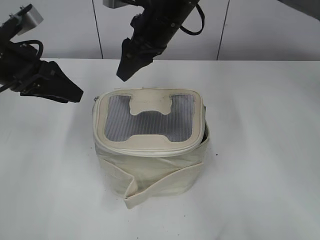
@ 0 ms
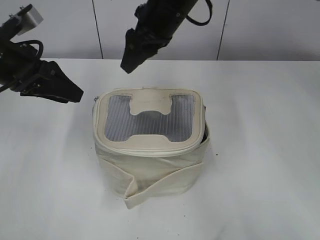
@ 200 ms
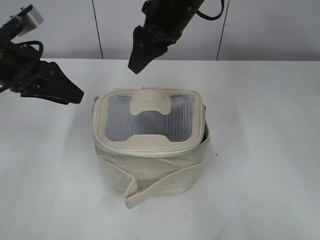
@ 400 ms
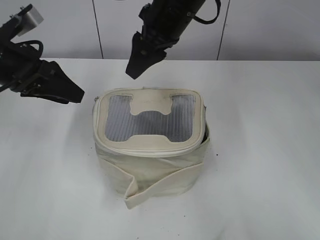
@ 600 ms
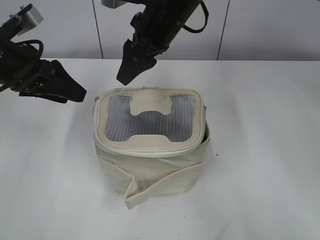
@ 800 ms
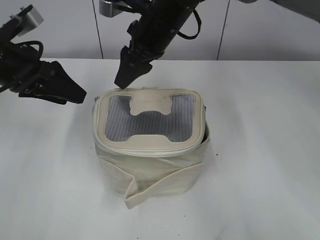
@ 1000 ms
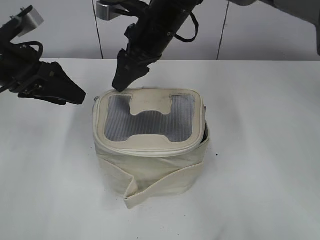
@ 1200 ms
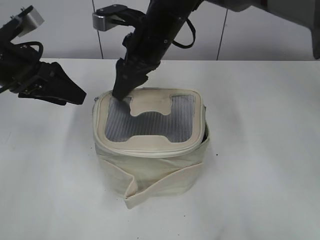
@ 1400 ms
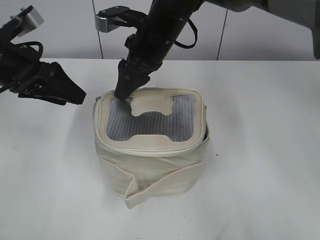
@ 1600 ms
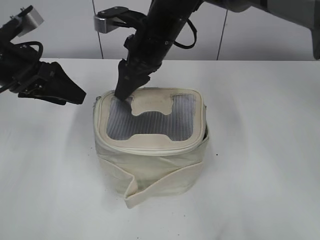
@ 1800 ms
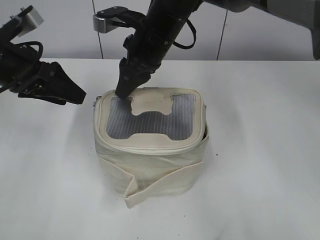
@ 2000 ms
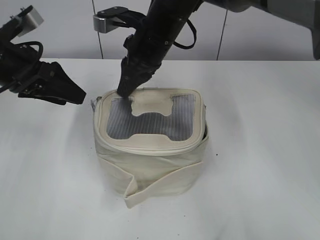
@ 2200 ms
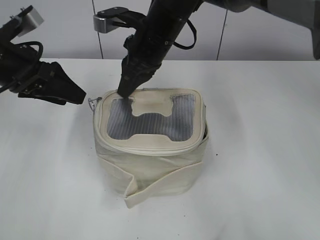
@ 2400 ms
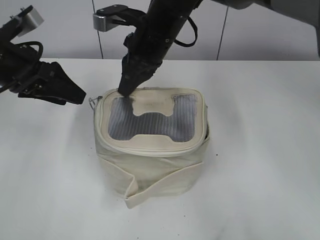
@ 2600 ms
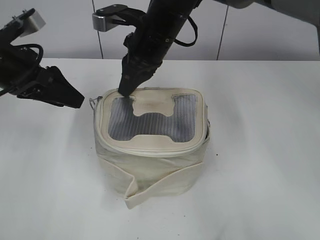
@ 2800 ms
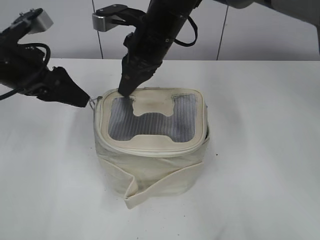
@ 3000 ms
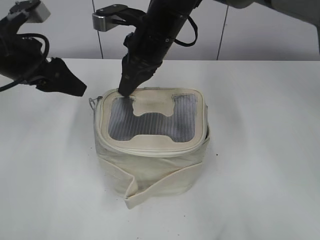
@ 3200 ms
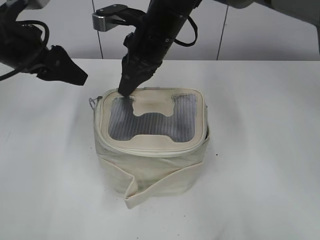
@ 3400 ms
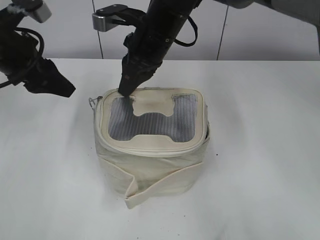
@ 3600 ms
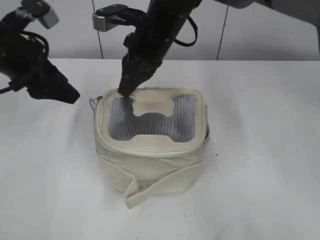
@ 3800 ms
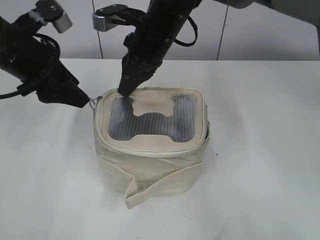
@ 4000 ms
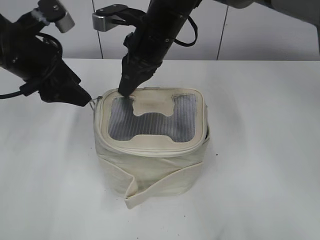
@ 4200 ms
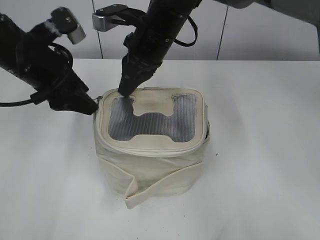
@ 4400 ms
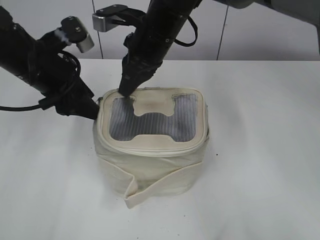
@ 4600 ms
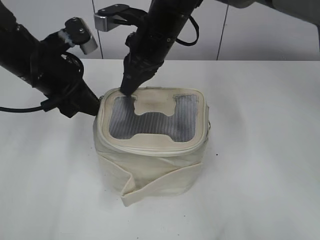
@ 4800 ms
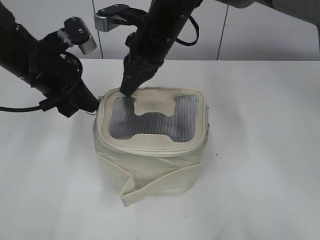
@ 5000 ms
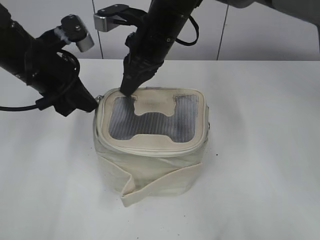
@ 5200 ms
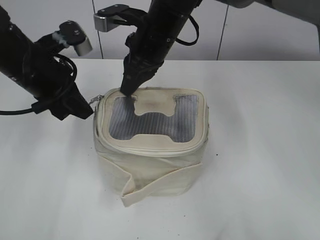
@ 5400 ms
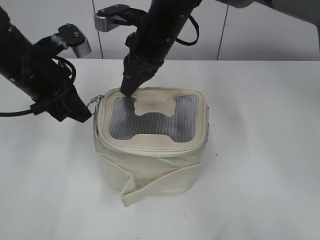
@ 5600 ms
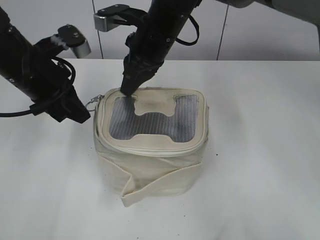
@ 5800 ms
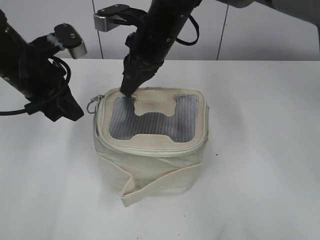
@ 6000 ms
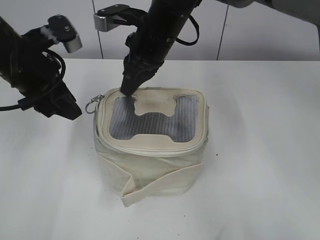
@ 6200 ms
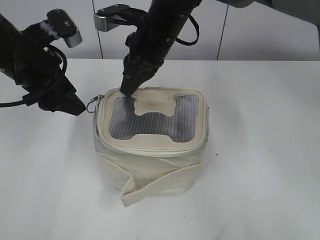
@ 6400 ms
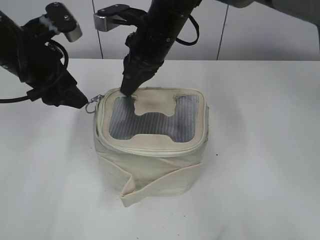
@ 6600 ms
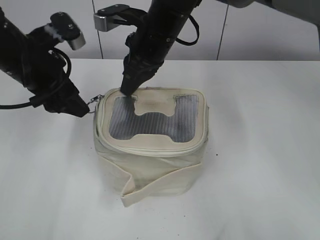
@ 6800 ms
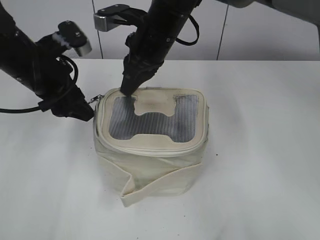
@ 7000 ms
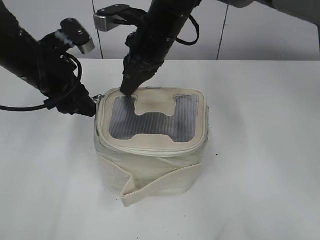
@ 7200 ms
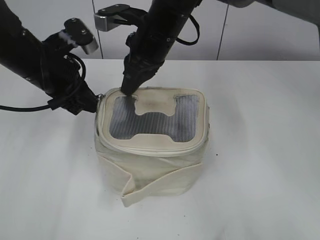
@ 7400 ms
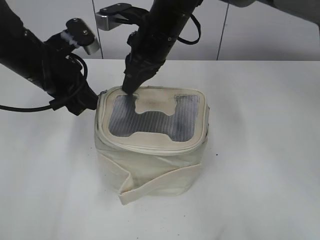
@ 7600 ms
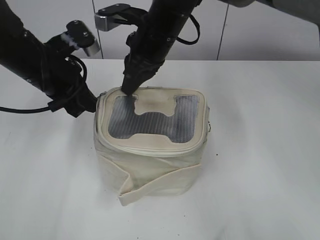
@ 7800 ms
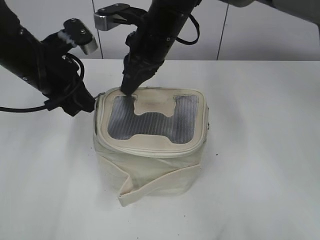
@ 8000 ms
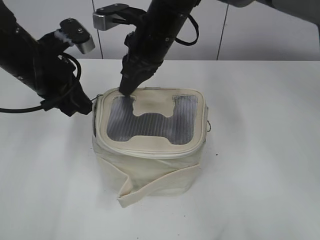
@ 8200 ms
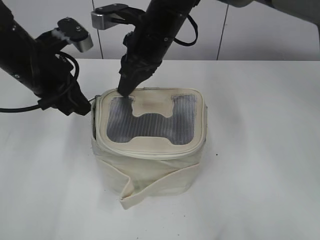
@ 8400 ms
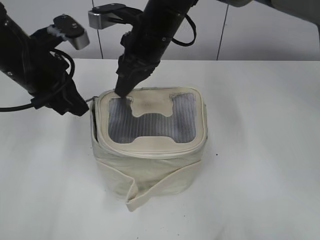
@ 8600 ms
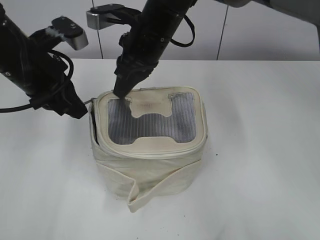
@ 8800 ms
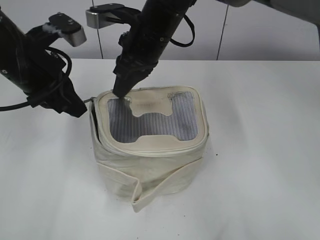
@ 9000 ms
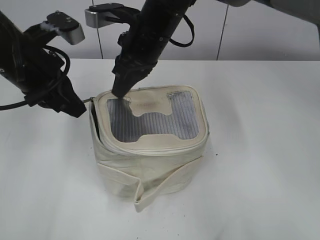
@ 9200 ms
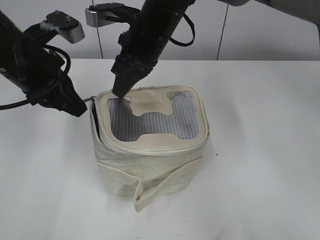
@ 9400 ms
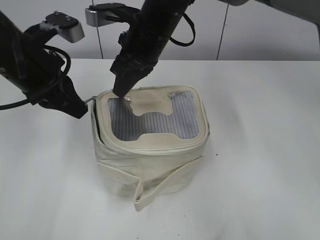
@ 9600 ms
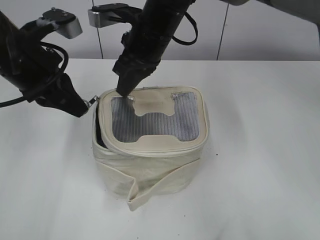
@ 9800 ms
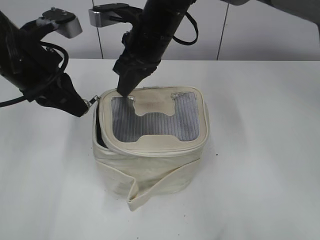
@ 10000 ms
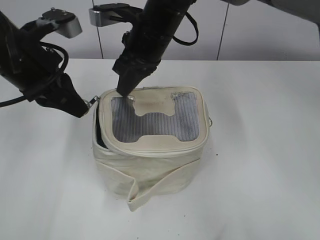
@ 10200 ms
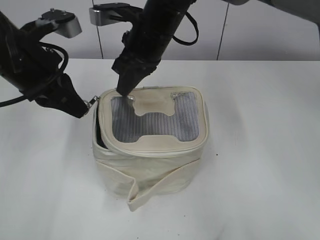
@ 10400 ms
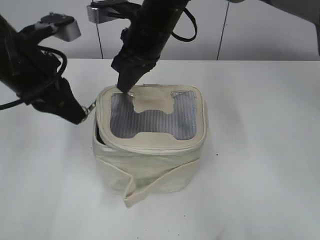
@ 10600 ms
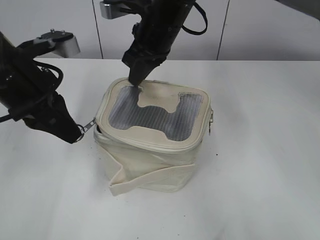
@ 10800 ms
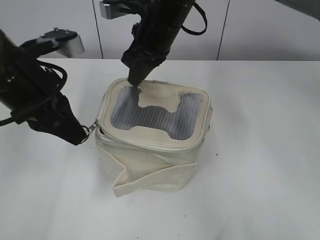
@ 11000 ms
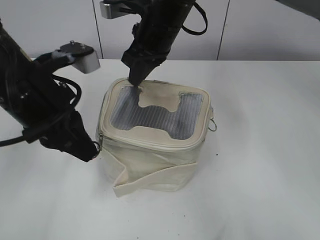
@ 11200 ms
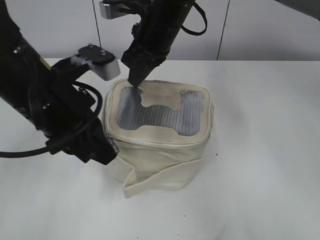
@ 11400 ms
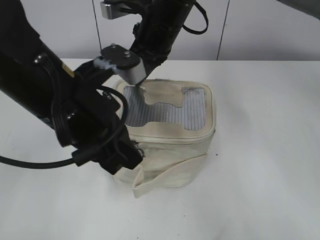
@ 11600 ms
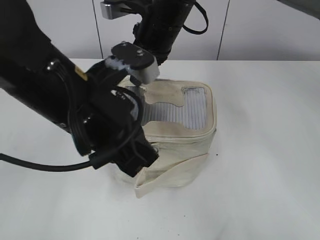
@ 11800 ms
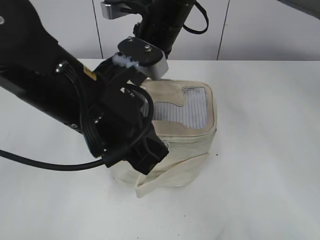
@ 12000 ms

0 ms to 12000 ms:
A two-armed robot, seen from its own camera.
0 ms to 1600 ms: The grippers stay close to where they were, moving slightly.
1600 ms to 3000 ms: The right gripper closes its fingers.
4400 ms to 6000 ms: The left gripper closes.
6000 ms to 7600 ms: The left gripper opens, then closes once more.
7600 ms to 10400 ms: There are only small adjustments of the grippers.
10400 ms to 12000 ms: The left gripper shifts approximately 15 cm to the right and backward.

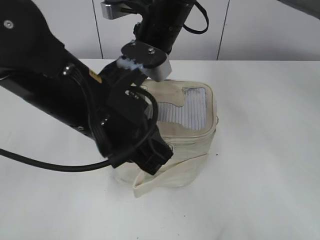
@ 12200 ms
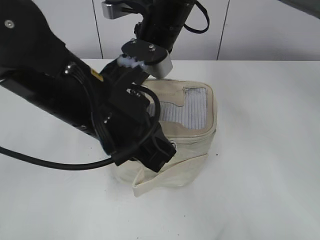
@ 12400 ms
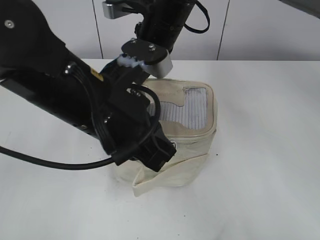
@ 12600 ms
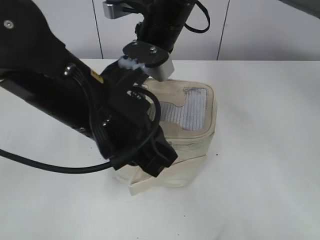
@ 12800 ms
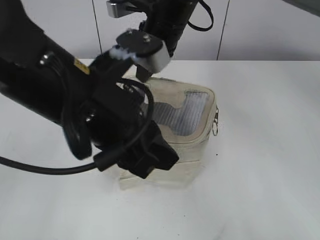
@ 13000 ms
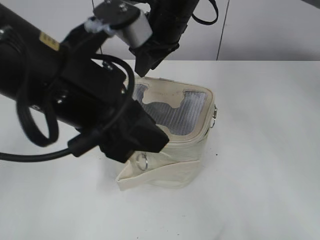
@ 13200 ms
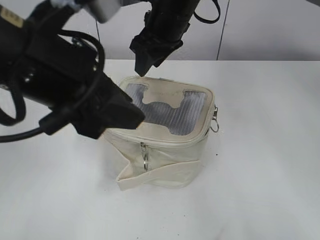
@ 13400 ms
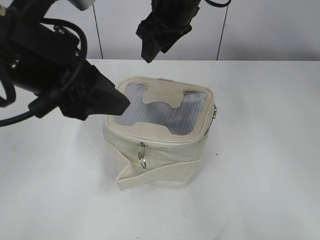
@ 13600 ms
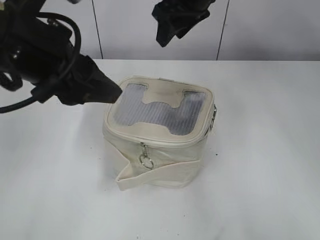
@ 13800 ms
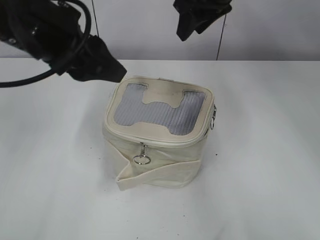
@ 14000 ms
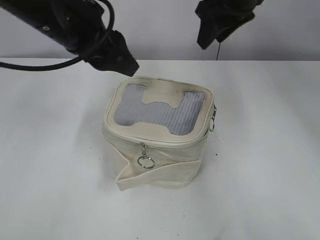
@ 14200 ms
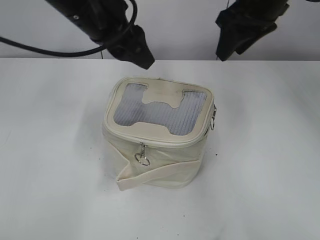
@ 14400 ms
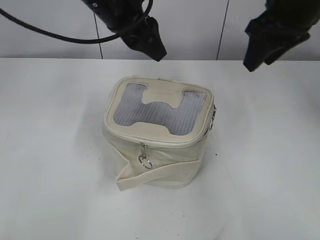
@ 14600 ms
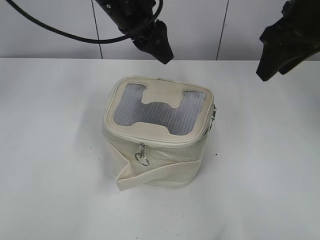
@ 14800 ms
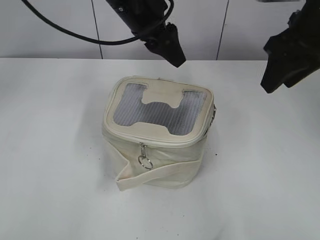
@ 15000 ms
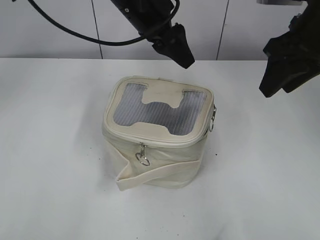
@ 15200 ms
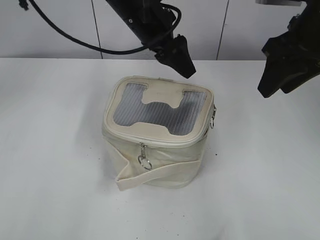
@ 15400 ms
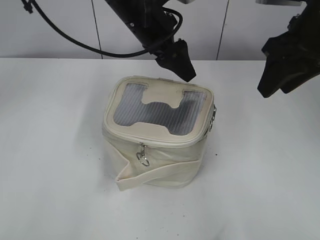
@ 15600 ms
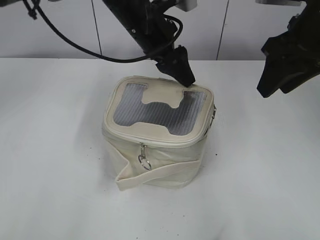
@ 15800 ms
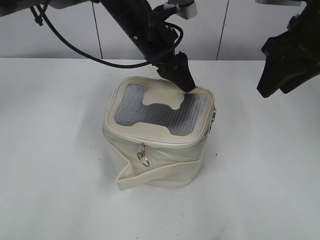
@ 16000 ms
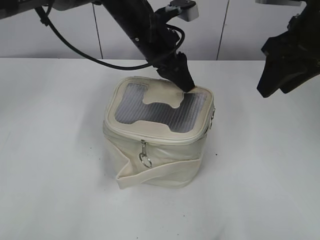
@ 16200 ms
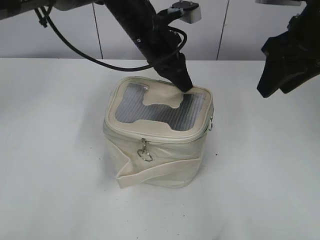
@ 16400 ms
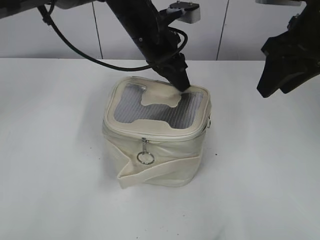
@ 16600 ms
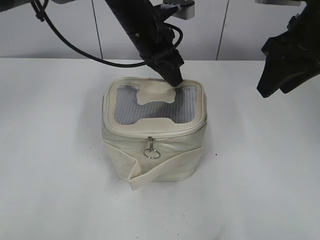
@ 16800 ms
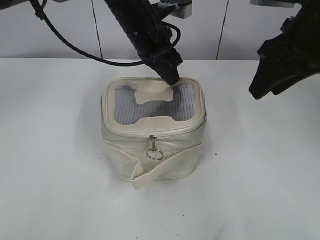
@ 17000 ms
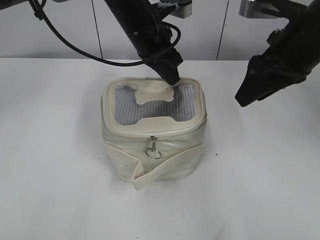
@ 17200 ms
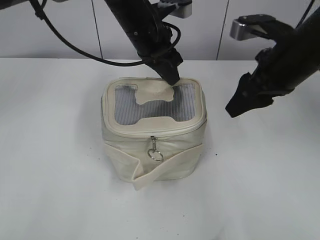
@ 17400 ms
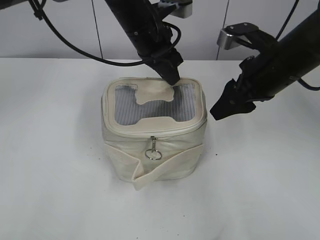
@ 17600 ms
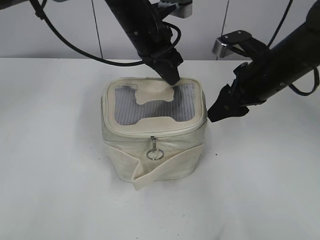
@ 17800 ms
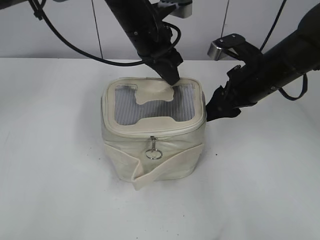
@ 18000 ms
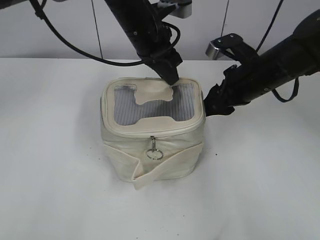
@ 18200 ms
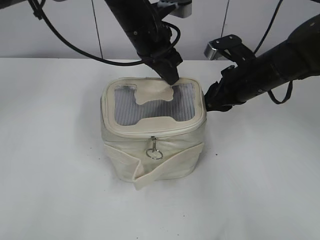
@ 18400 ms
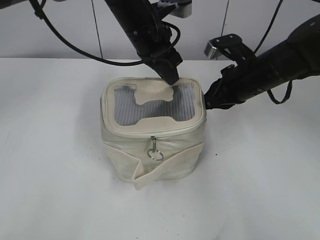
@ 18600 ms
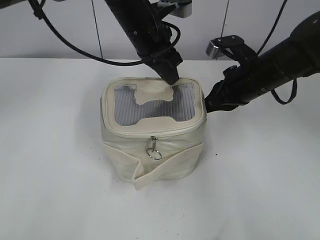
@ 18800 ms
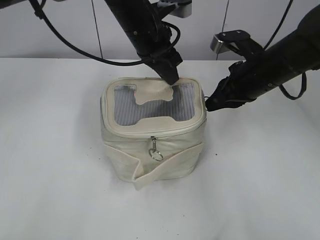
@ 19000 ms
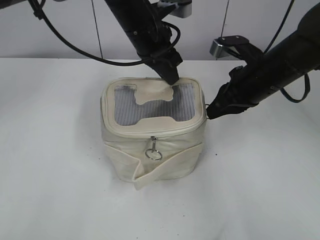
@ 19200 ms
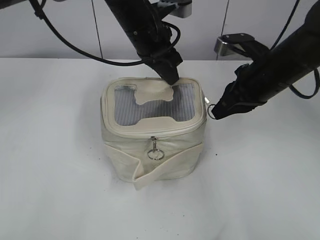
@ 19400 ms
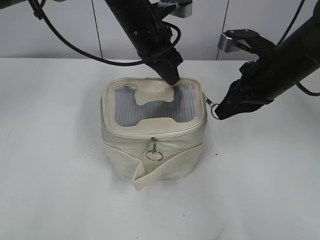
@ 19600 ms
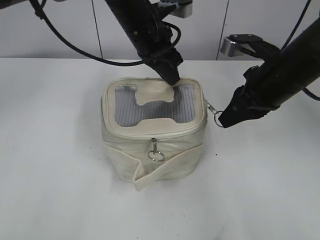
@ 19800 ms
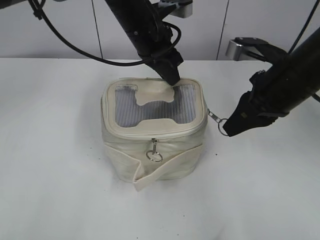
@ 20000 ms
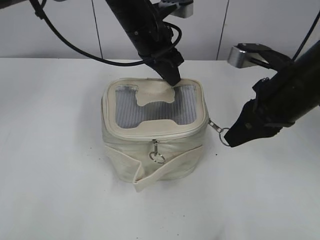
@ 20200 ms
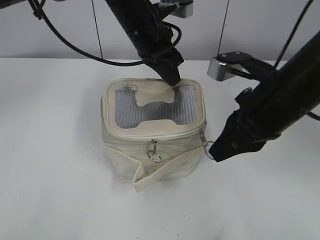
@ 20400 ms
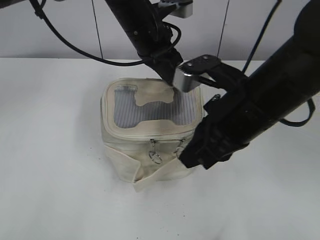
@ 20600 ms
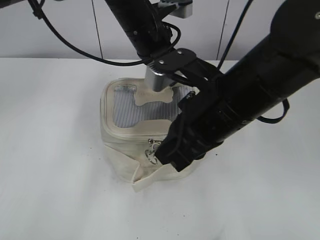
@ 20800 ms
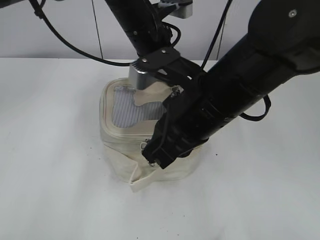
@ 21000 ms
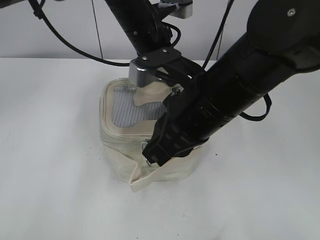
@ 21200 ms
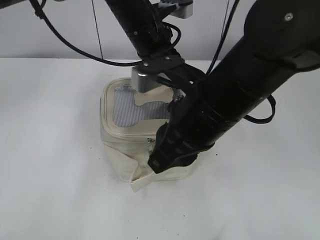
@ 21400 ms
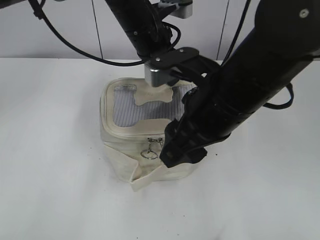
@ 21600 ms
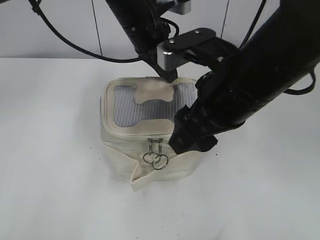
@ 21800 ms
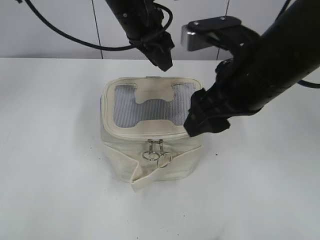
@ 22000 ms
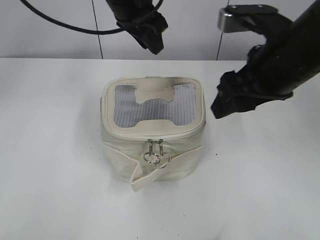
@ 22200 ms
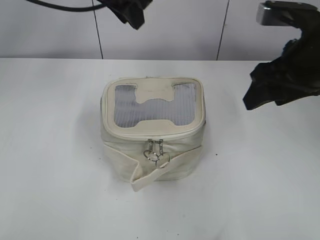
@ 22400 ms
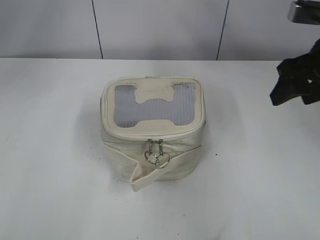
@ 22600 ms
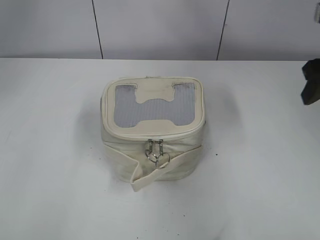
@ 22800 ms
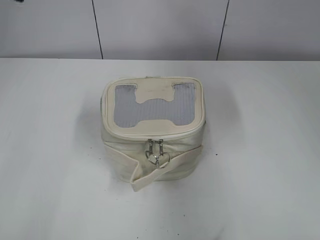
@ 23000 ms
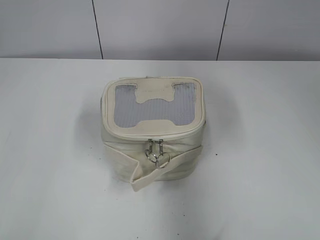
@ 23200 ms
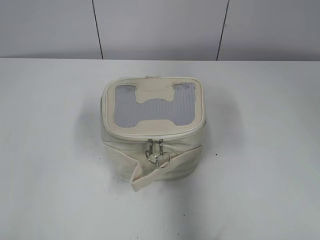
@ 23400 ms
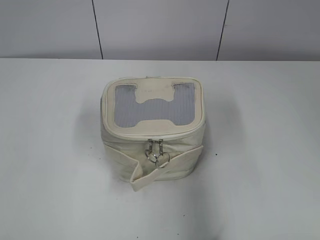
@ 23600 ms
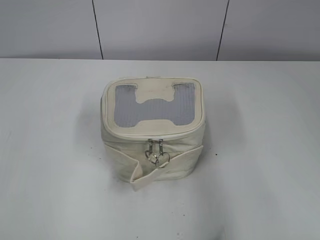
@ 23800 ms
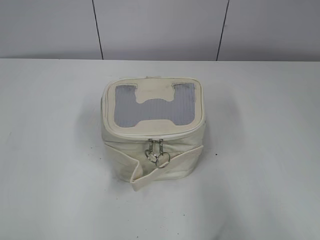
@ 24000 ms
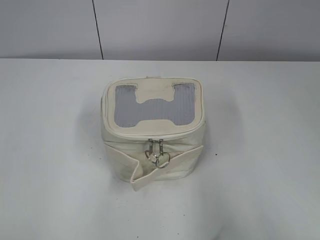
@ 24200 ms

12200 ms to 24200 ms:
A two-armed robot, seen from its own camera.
Step, 12800 ms to 13200 ms: Hold the bag with your right hand.
Step, 13400 ms to 21200 ms: Zip up the bag with your right hand.
Step, 21600 ms to 21800 ms: Hold the bag with your left hand.
12200 ms to 13800 ms: The right gripper shifts about 5 cm upward, and opens up; the left gripper goes some 10 cm to the left and upward, and opens its fingers.
13800 ms to 15200 ms: The left gripper is displaced forward and to the right by about 20 cm. Meanwhile the right gripper goes about 20 cm to the right and backward.
15200 ms to 16600 ms: The left gripper goes roughly 5 cm downward, and closes up.
16600 ms to 18200 ms: The right gripper is displaced downward by about 15 cm.
18200 ms to 19800 ms: The right gripper shifts by roughly 5 cm, and closes its fingers.
19800 ms to 21200 ms: The right gripper travels to the left and backward by roughly 15 cm.
21200 ms to 22600 ms: The left gripper heads upward and to the left, covering some 15 cm, and opens its fingers, while the right gripper shifts some 15 cm to the right, and opens.
22600 ms to 24200 ms: The right gripper goes approximately 25 cm backward, while the left gripper heads backward and to the left, covering roughly 40 cm.